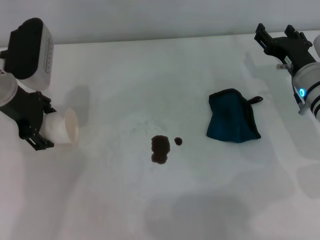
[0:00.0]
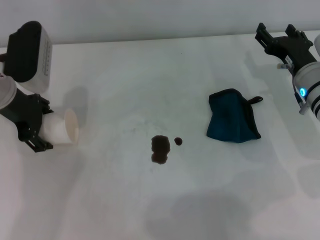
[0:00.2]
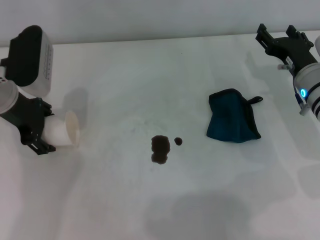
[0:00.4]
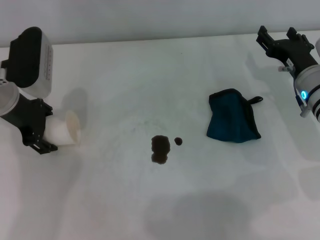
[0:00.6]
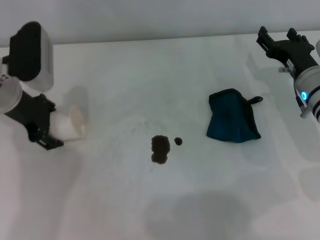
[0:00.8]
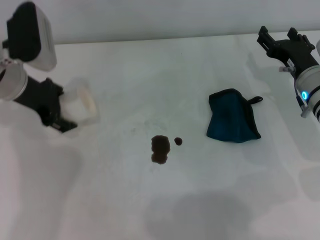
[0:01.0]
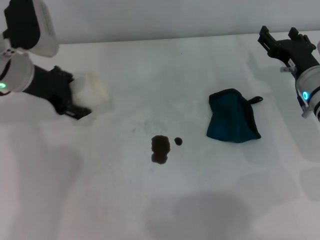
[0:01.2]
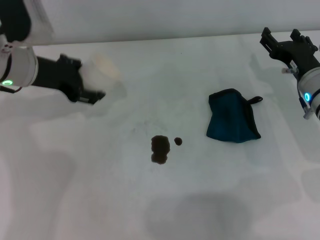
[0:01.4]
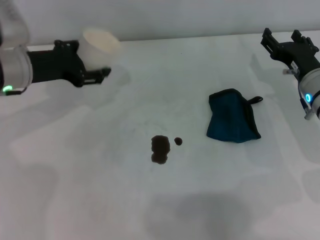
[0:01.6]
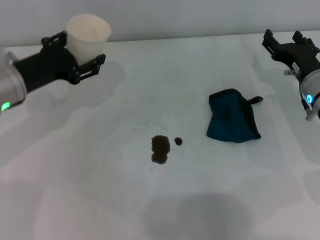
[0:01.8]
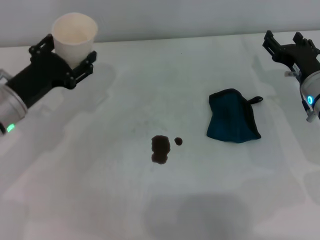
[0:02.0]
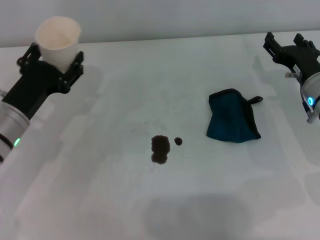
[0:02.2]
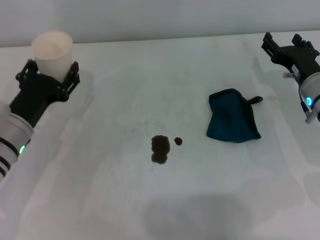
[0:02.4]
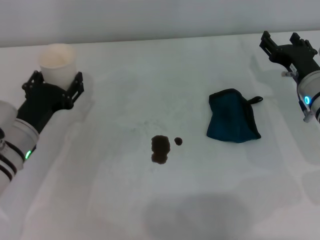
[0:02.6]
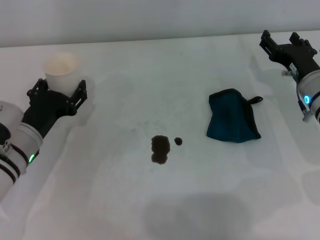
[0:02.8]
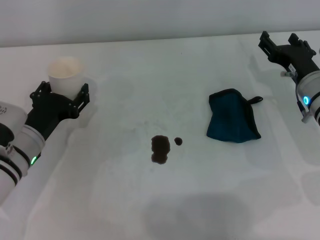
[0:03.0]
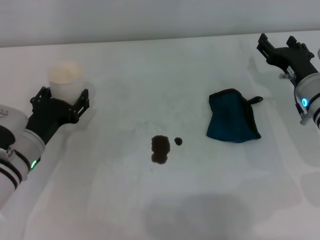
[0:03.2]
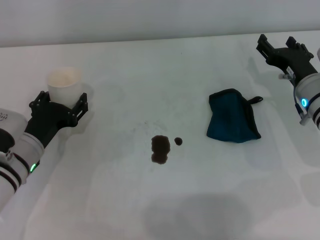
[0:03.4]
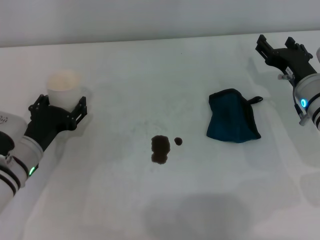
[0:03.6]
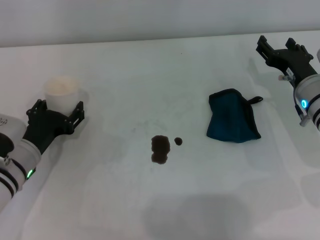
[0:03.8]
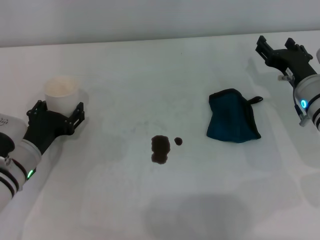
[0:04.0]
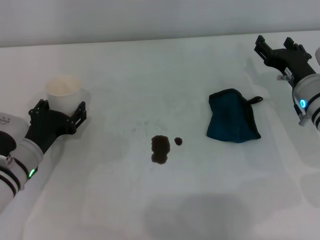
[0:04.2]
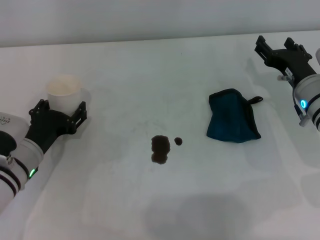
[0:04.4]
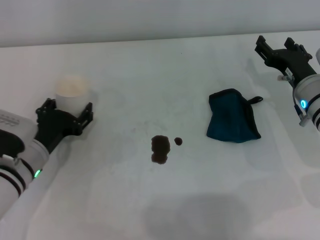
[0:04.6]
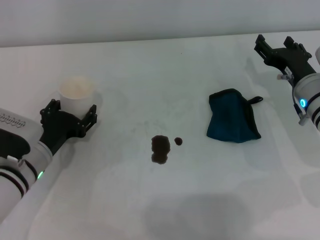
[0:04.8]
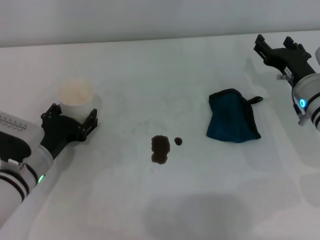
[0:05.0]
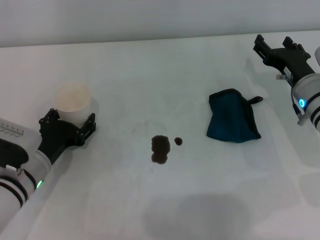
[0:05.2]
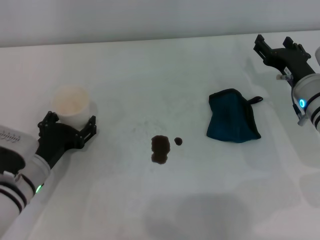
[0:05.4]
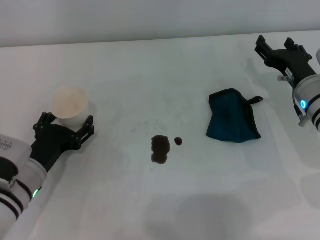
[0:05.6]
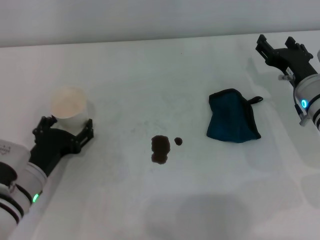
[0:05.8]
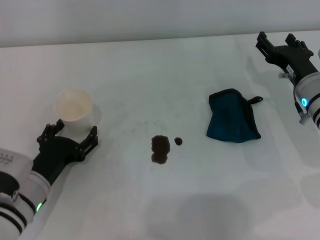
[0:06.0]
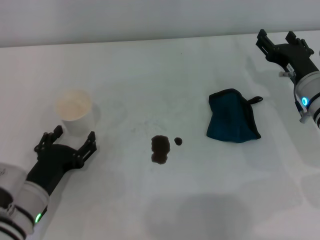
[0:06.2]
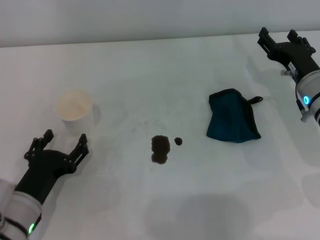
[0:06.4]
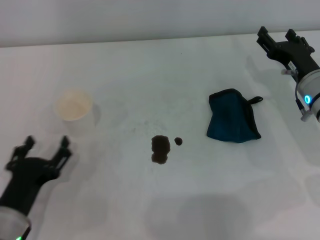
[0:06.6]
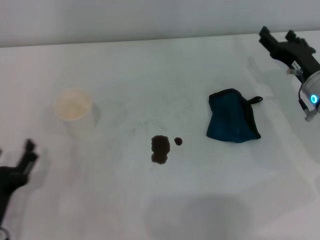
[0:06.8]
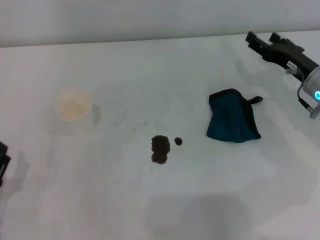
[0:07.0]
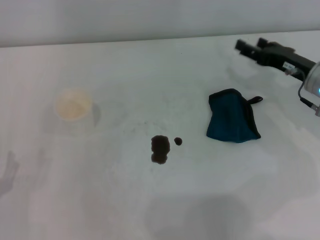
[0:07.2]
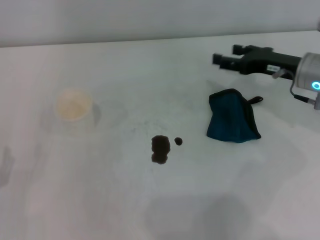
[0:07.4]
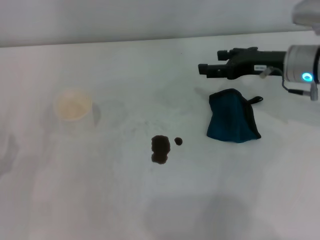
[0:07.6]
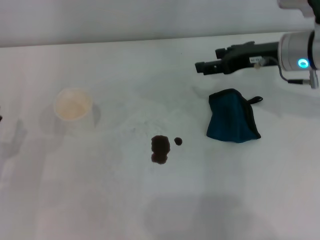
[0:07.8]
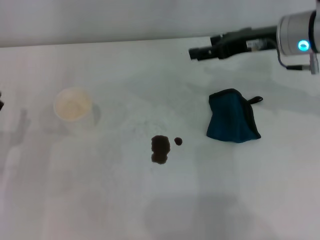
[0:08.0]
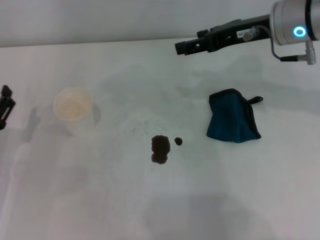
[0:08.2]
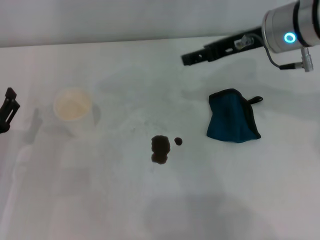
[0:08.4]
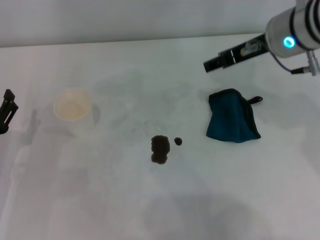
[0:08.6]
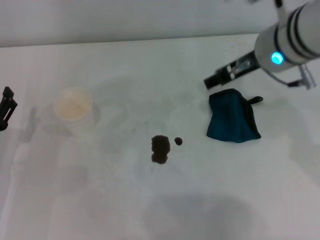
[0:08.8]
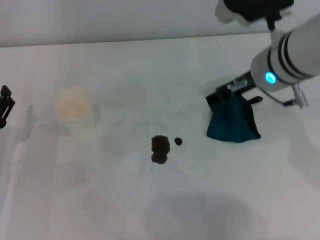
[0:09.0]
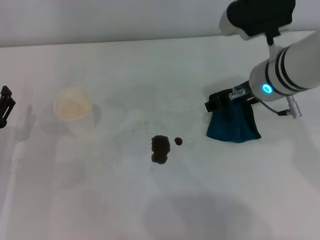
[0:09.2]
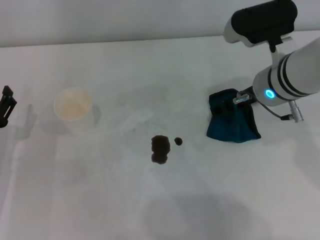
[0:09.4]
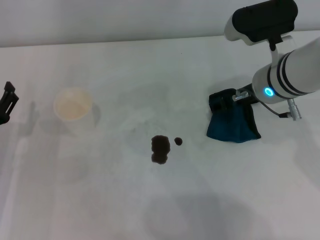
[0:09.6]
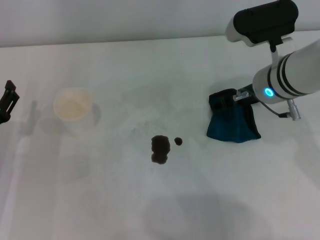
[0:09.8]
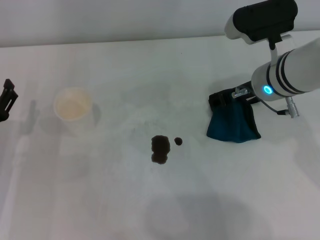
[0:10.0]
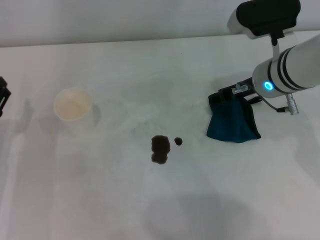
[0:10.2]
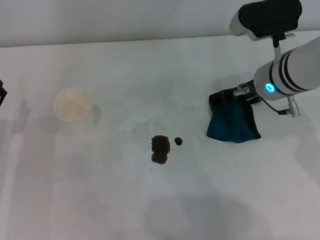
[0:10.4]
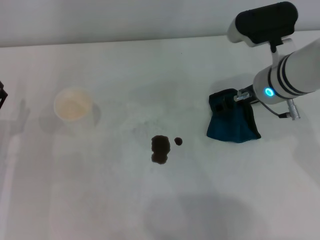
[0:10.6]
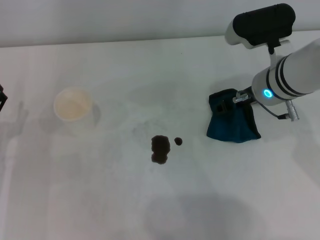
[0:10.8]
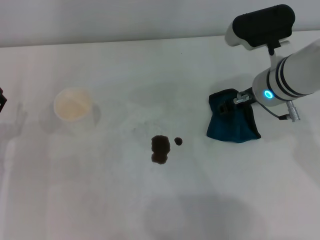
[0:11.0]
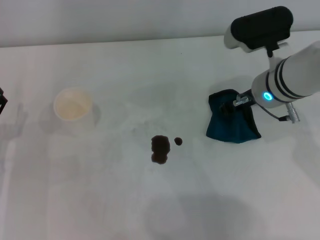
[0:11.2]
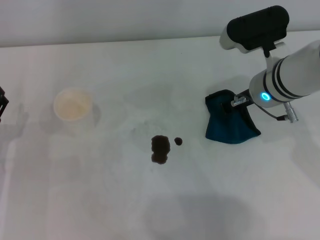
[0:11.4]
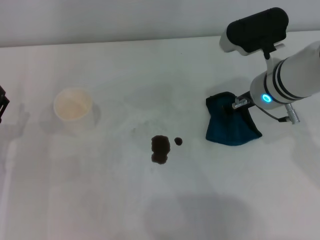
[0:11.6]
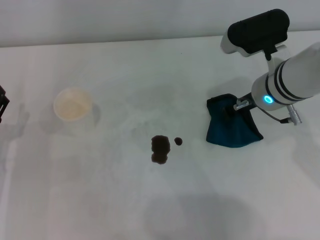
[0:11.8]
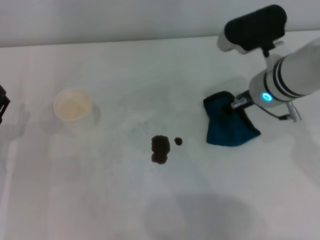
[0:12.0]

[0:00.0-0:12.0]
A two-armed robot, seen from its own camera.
Step, 0:00.8 to 0:05.4: Stand the paper cup upright with the left gripper.
Step, 0:05.6 to 0:11.8: Grasp the rag with the right gripper.
0:00.0 to 0:01.6: The left gripper closes up.
0:01.6 to 0:03.0: The left gripper is displaced downward and backward by roughly 15 cm.
0:03.0 to 0:04.4: The grippers make only small movements.
0:04.4 to 0:06.0: The left gripper is displaced backward by about 5 cm, and opens.
0:06.0 to 0:07.6: The left gripper heads to the left, covering about 10 cm; the right gripper shifts roughly 10 cm upward.
0:07.6 to 0:09.0: The right gripper heads to the left and upward, covering about 10 cm. The left gripper is displaced forward by roughly 5 cm.
0:09.0 to 0:10.4: The right gripper travels downward by approximately 5 cm.
0:10.4 to 0:12.0: The right gripper closes.

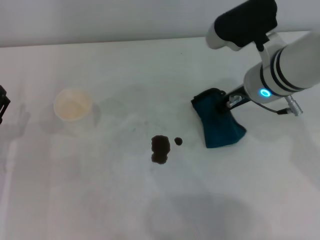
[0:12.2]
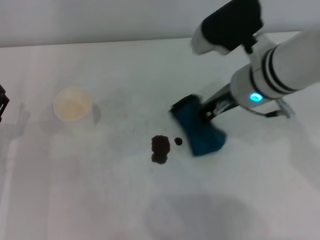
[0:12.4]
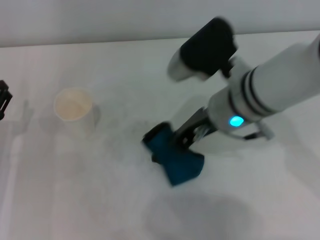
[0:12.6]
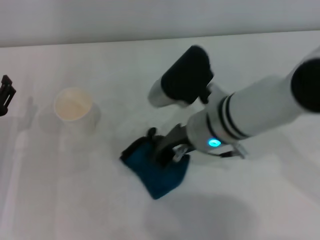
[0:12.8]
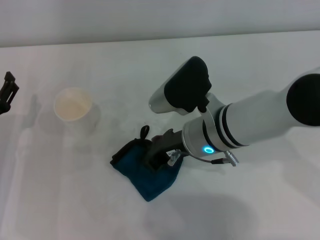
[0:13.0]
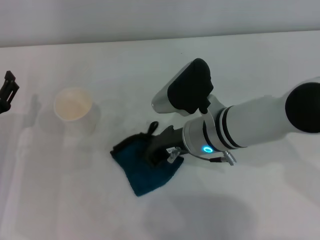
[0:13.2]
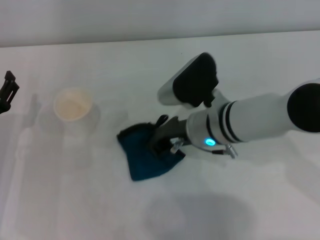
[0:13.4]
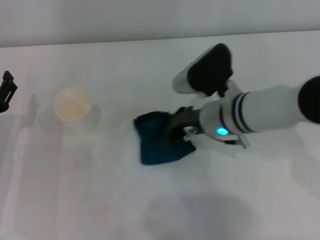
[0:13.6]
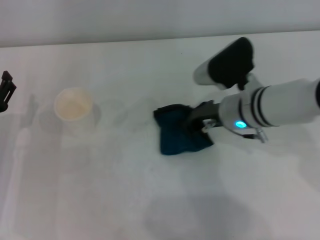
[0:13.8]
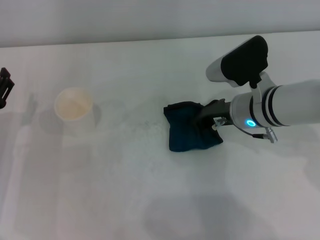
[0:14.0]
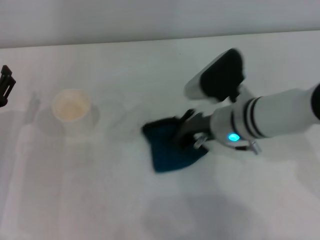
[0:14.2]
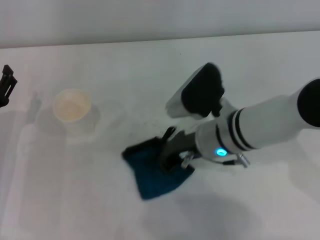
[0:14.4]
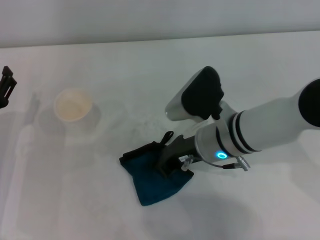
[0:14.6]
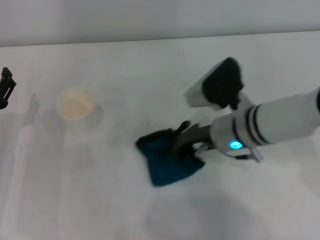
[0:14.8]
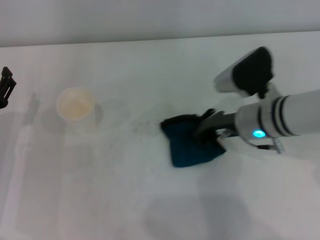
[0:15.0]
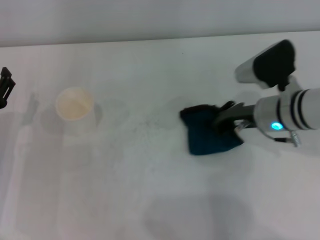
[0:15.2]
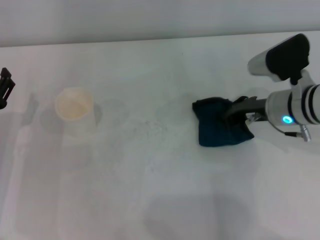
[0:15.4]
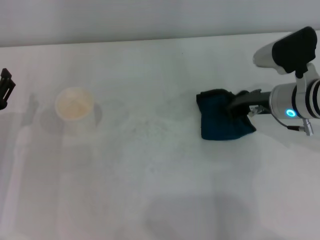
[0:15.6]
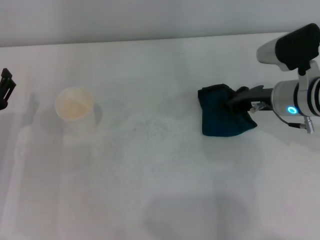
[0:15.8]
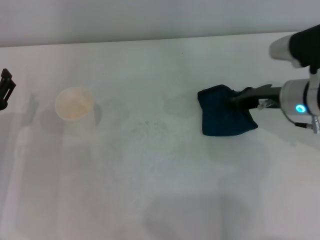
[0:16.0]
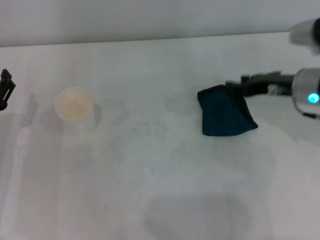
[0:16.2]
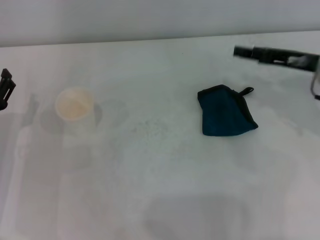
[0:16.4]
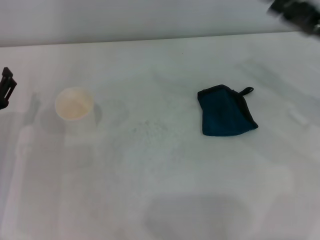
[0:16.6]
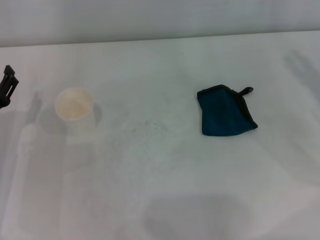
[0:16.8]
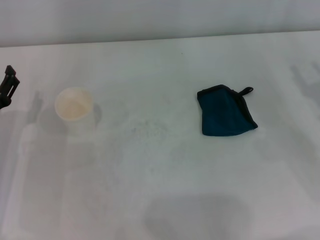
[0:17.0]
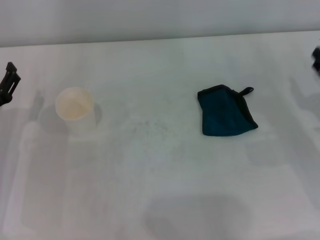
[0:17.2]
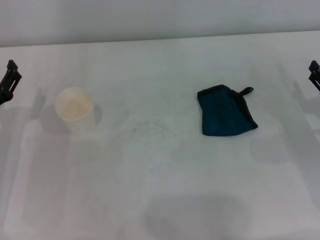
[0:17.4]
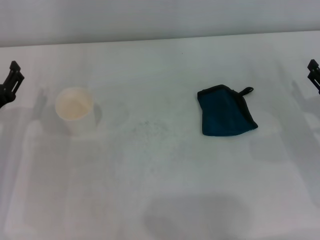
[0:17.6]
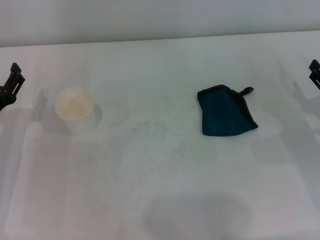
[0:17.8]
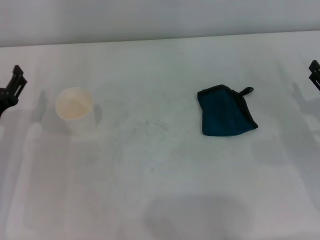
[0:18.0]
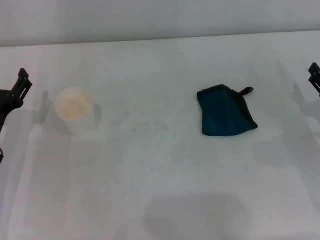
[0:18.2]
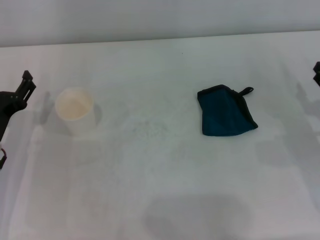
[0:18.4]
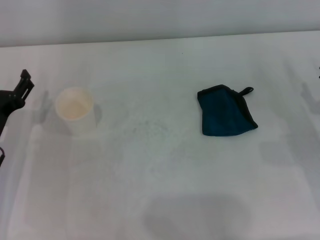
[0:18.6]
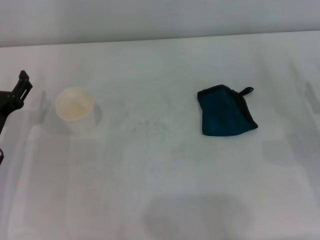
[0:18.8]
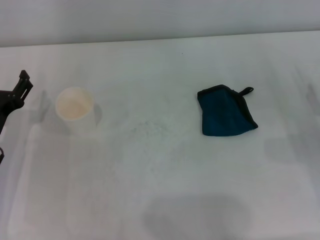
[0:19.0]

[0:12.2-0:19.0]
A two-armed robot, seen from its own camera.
Step, 0:12.2 to 0:15.0: Wipe the stains off the table with the right gripper.
Step, 0:15.2 to 0:15.8: Place the rag on the table with the right gripper.
0:12.2 to 0:13.6: The right gripper shifts about 5 cm downward.
0:13.6 to 0:15.0: The right gripper swings left and right, about 5 cm each way, with 2 reversals.
0:15.0 to 0:16.2: The right gripper is displaced to the right by approximately 10 cm.
0:16.2 to 0:17.6: The right gripper heads to the right, downward and backward, covering approximately 15 cm, and opens its fingers.
0:17.6 to 0:19.0: The grippers stay close to where they were, moving slightly.

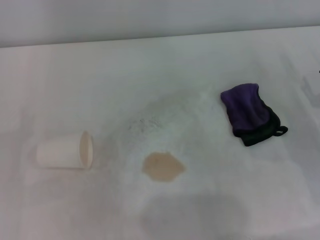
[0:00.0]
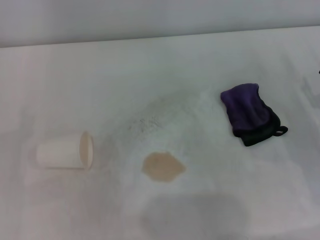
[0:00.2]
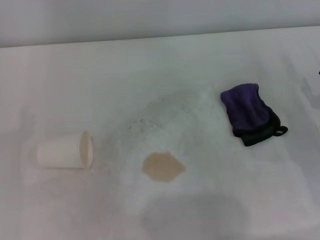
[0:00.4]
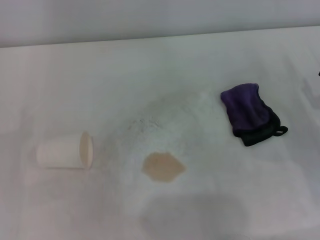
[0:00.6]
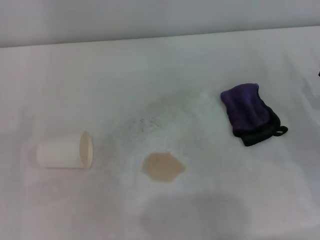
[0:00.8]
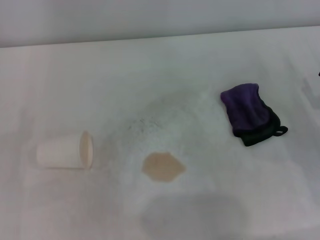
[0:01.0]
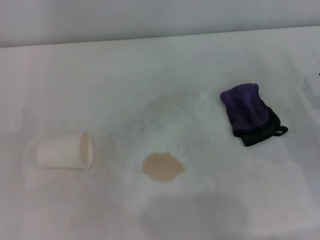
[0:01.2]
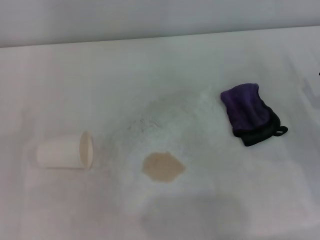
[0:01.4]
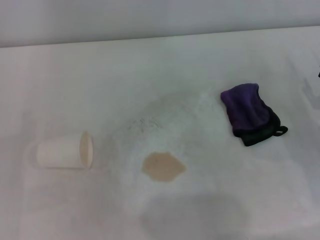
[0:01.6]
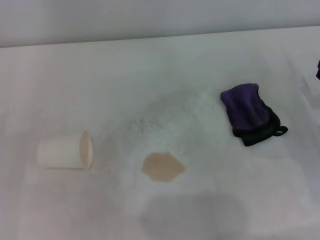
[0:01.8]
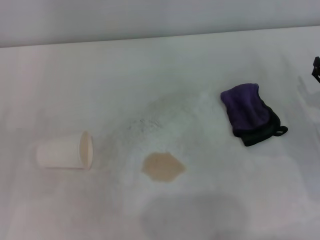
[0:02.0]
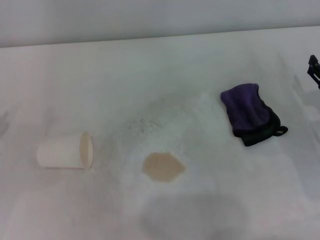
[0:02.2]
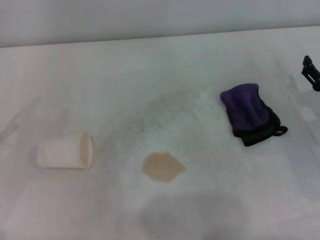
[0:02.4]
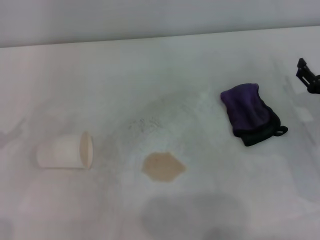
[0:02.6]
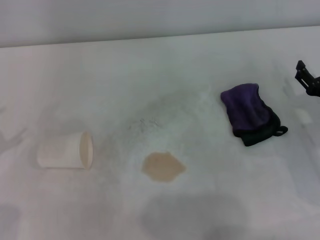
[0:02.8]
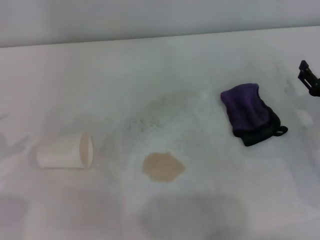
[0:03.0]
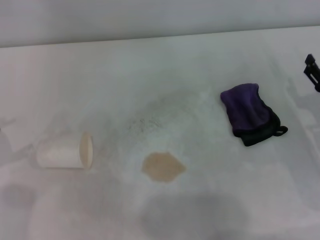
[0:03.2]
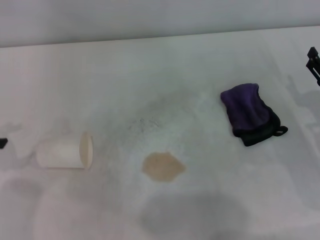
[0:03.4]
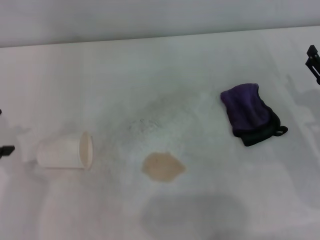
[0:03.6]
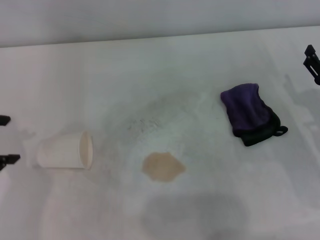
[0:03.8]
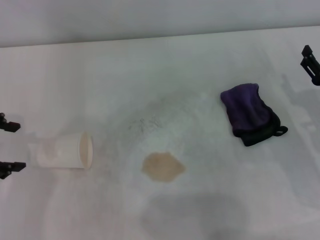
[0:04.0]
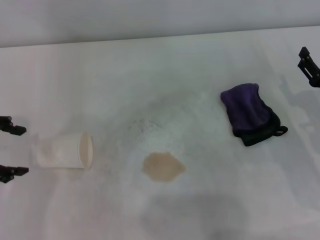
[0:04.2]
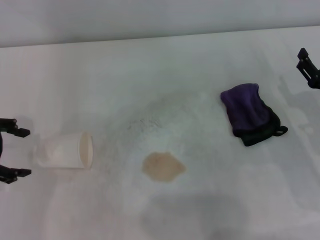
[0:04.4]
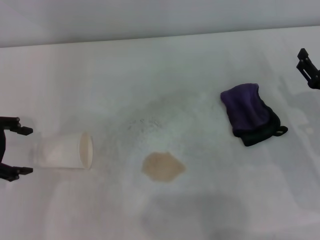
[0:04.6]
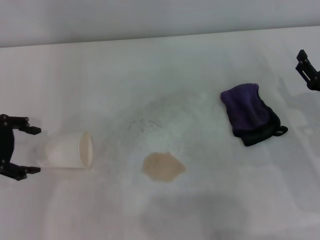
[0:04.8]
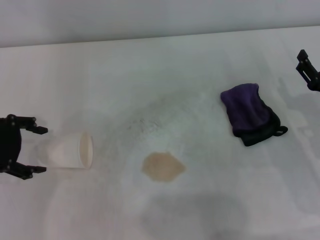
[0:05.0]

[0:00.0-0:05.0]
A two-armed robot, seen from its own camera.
0:00.0 to 0:01.6: Neither gripper changes place.
0:03.4 to 0:05.0: The left gripper shifts about 5 cm to the right.
